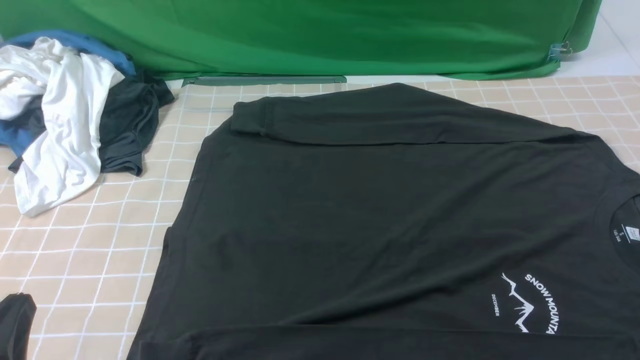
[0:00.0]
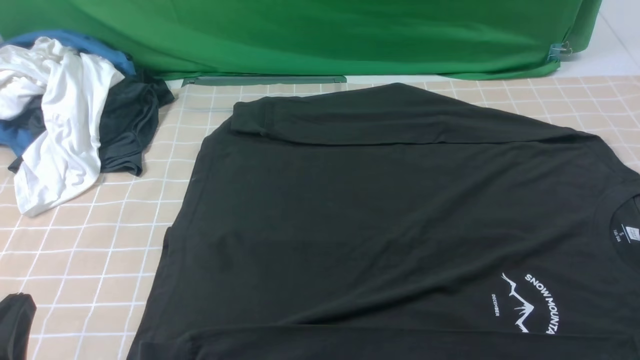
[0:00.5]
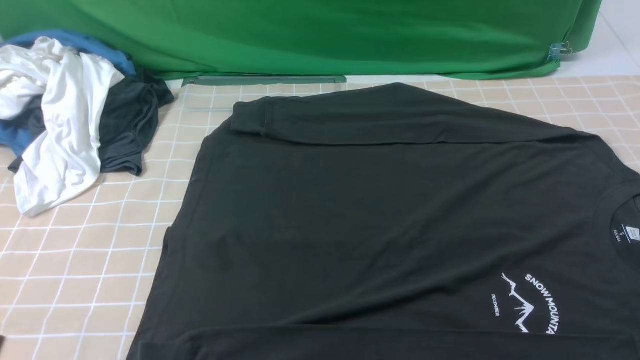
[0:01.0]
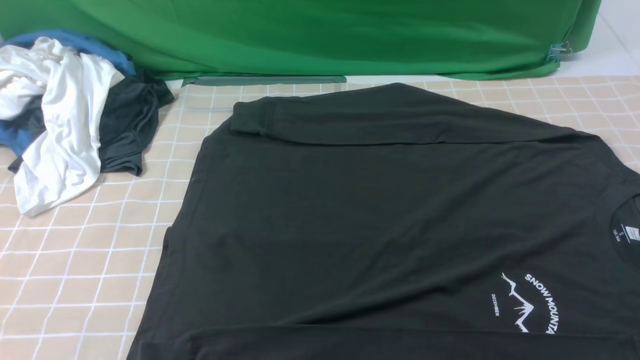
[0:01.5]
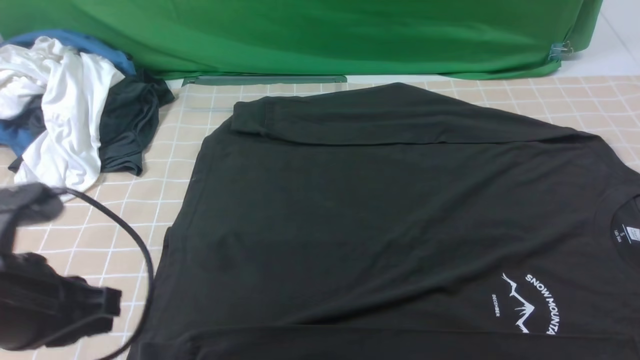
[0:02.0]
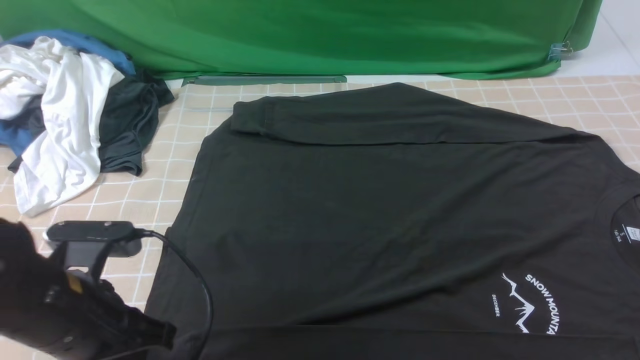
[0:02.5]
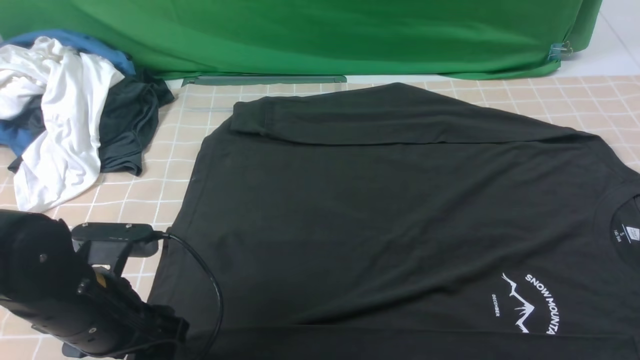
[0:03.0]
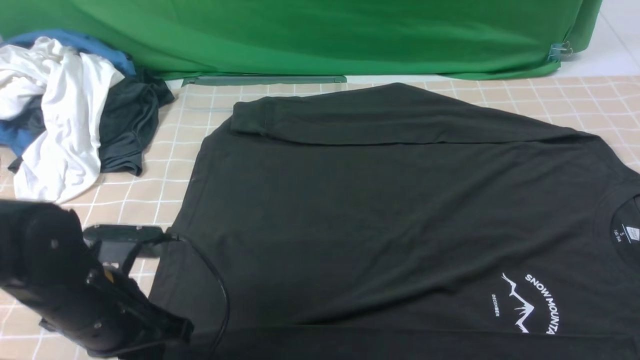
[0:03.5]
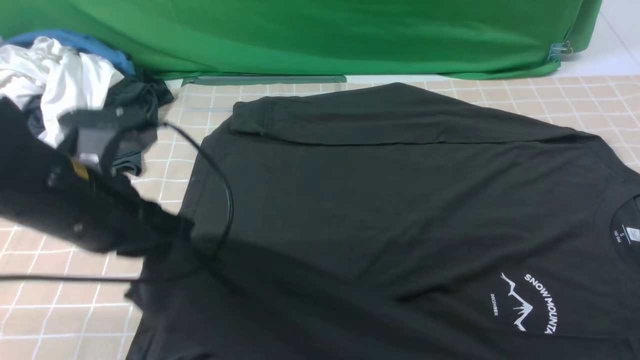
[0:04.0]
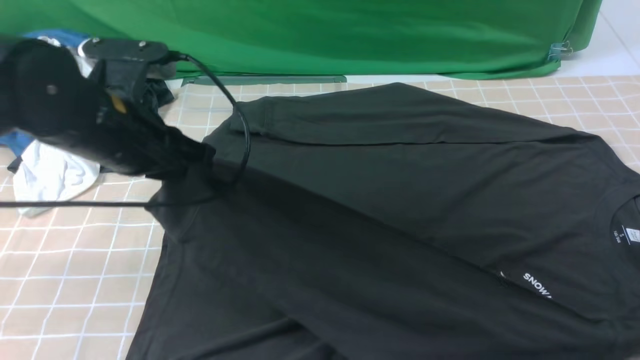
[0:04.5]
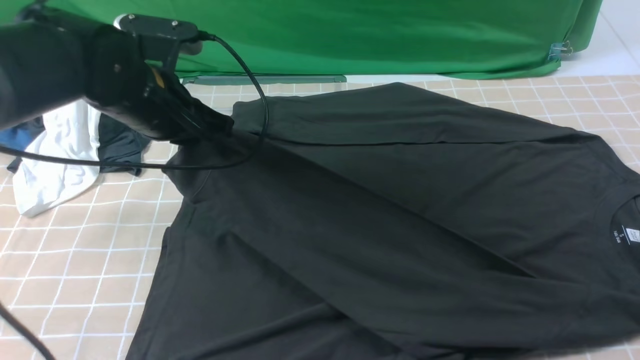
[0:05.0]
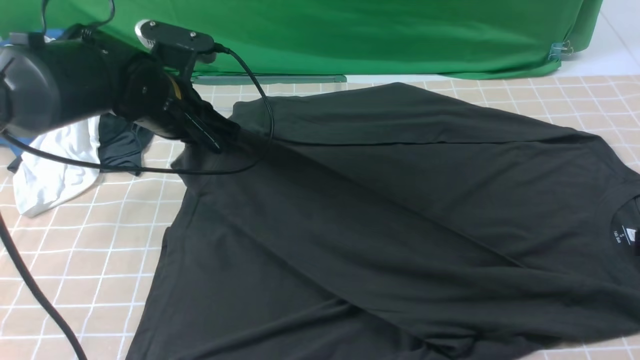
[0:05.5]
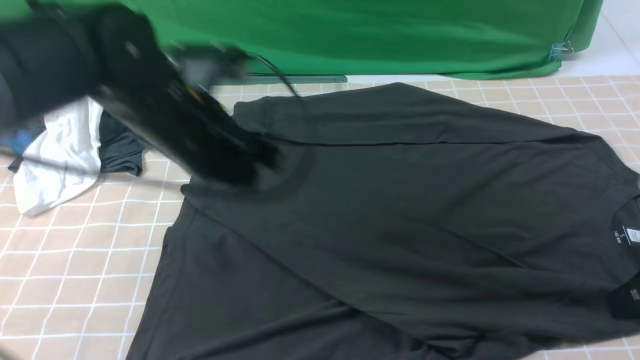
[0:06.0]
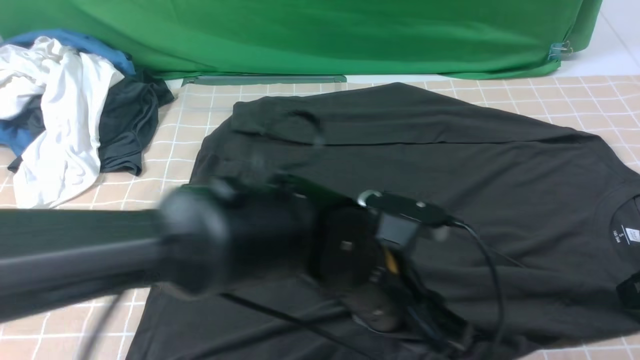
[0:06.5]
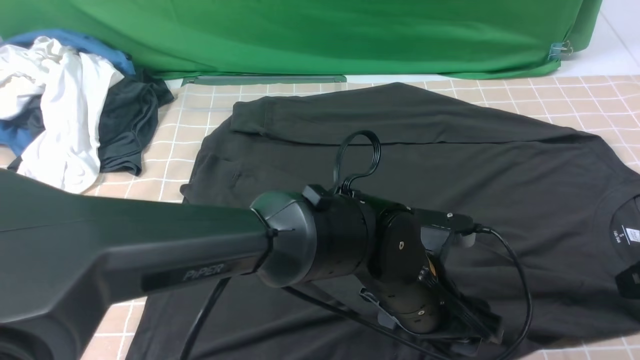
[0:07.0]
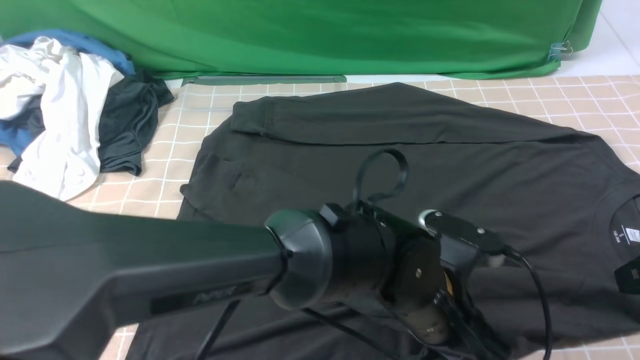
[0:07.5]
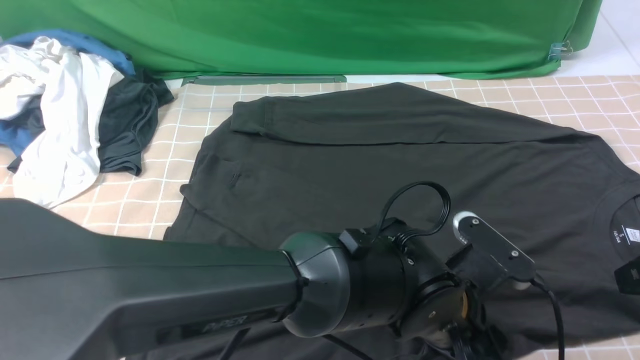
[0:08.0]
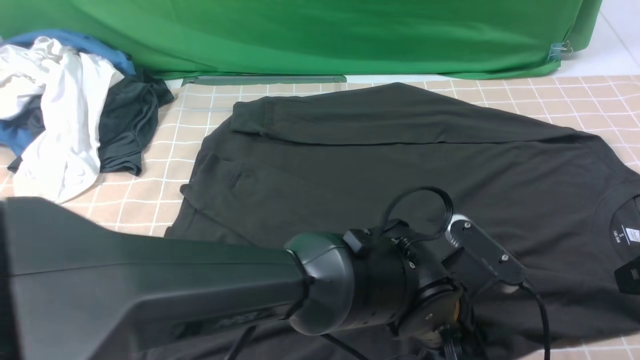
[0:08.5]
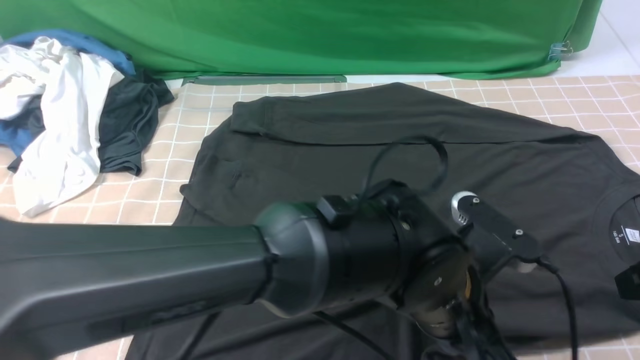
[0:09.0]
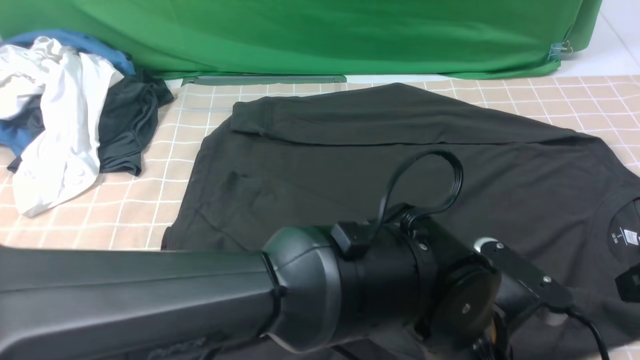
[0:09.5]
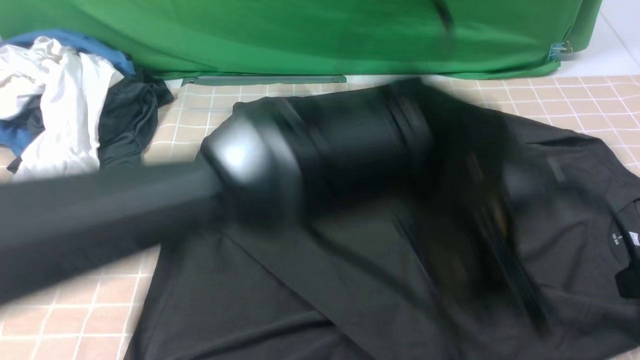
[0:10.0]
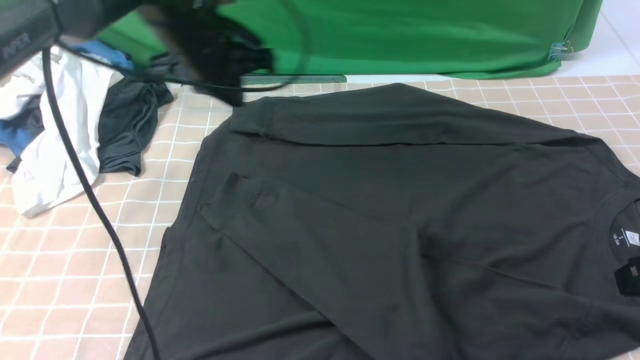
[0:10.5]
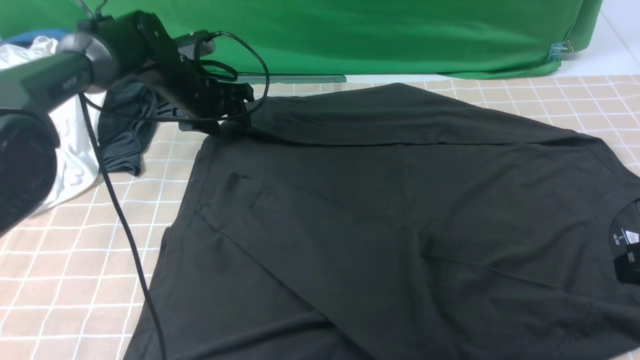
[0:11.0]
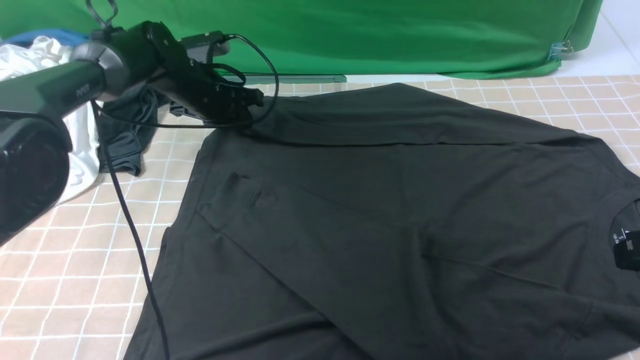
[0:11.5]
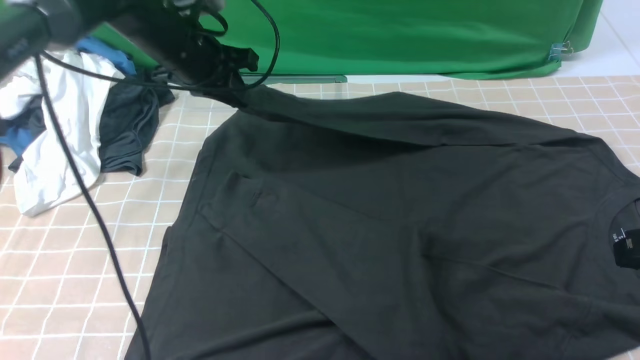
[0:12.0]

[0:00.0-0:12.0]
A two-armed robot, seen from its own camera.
Step, 0:00.0 to 0:03.0: use the left arm to clamp the cuff closest to it.
Step, 0:03.5 to 0:05.5: use the left arm to drag and place the cuff at the centered position on the left edge of the fabric.
Step, 0:06.0 to 0:11.5: use the left arm to clamp the cuff farthest from it.
0:00.0 to 0:02.0: The left gripper is displaced forward and upward by approximately 10 cm.
0:02.0 to 0:04.0: Both grippers travel together forward, some 10 cm. The left gripper travels downward and back again, some 10 cm each way, and opens, then closes again.
0:04.0 to 0:06.0: The left gripper shifts some 10 cm to the right and forward.
0:06.0 to 0:08.0: The left gripper shifts some 25 cm to the right, backward and downward, and opens up.
0:08.0 to 0:10.0: The left gripper goes some 10 cm upward, and closes.
0:10.0 to 0:12.0: The left gripper travels to the left and forward by about 35 cm, and opens and closes again.

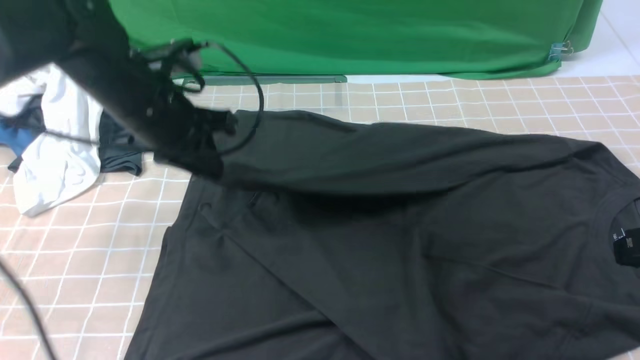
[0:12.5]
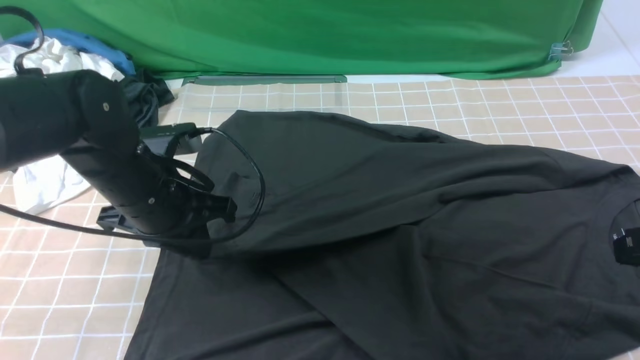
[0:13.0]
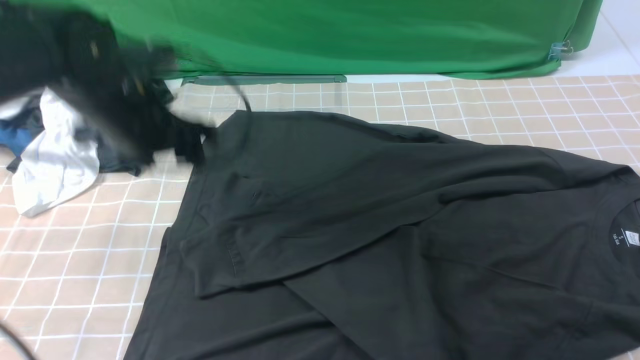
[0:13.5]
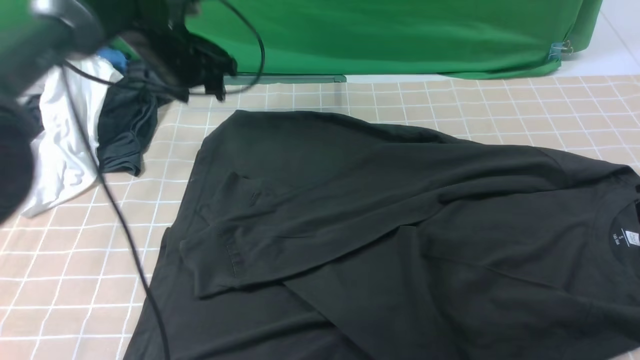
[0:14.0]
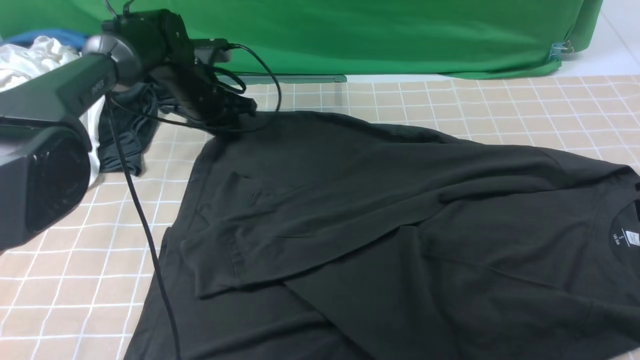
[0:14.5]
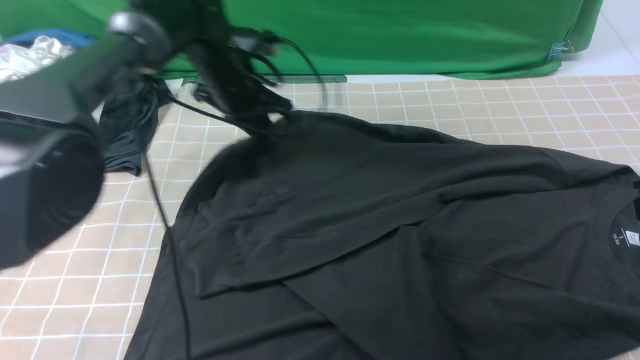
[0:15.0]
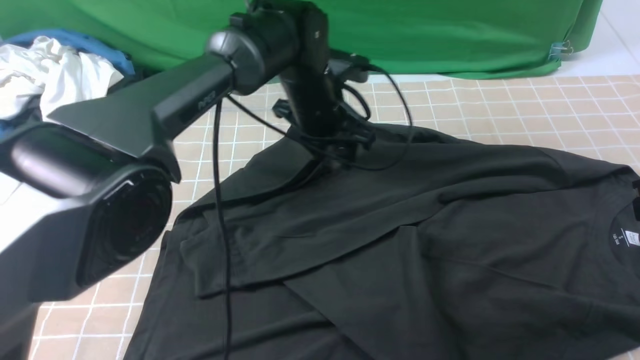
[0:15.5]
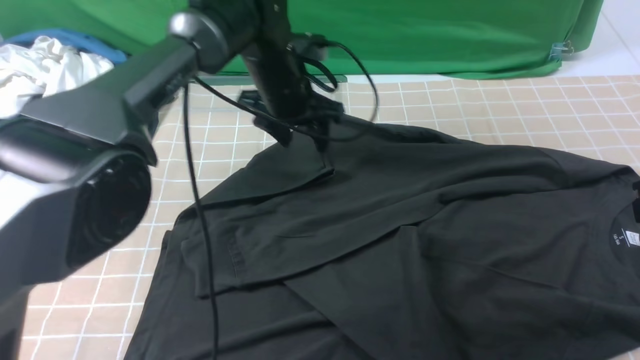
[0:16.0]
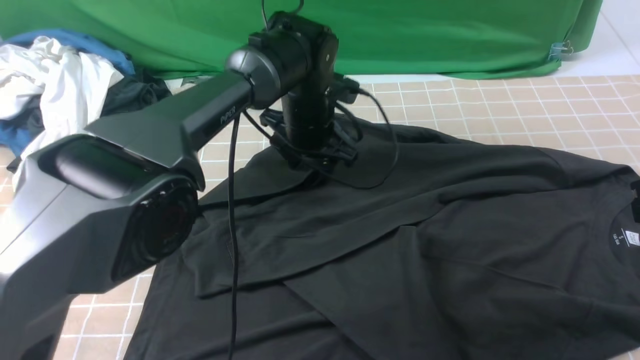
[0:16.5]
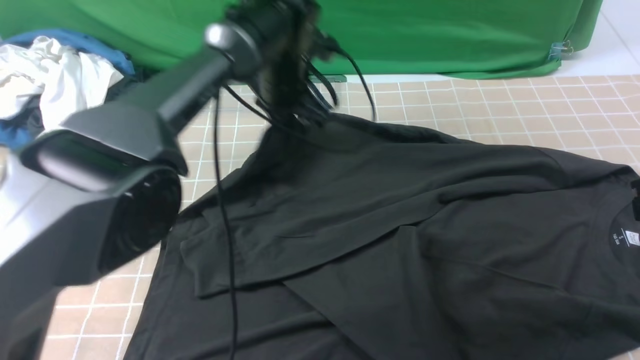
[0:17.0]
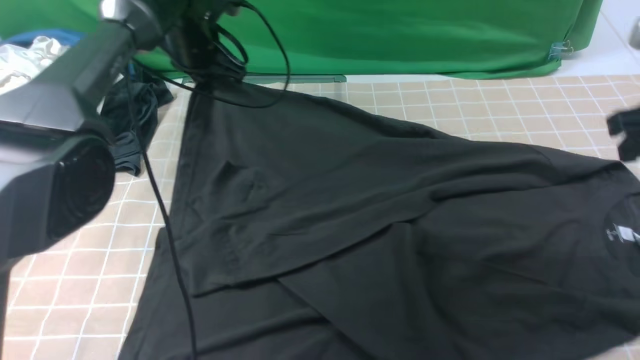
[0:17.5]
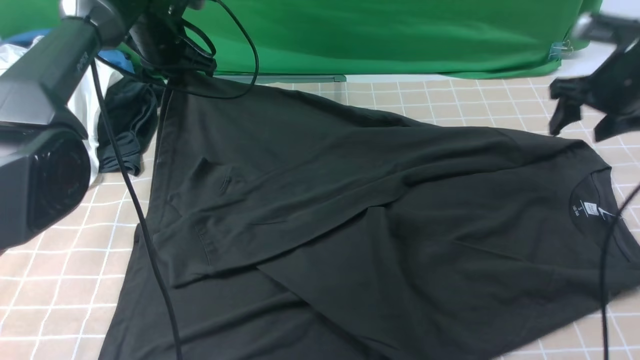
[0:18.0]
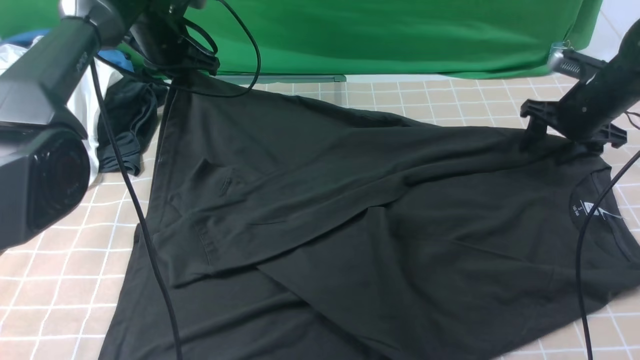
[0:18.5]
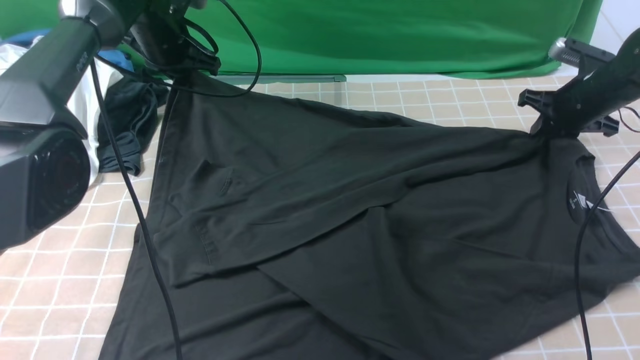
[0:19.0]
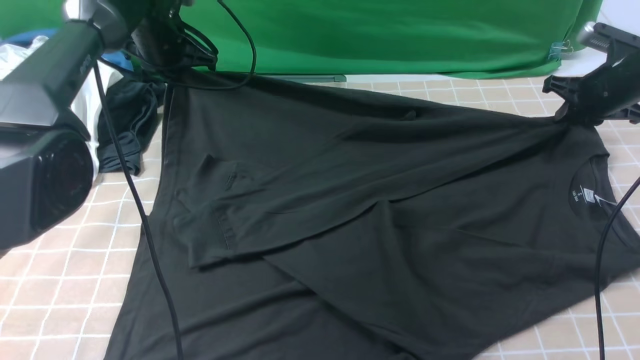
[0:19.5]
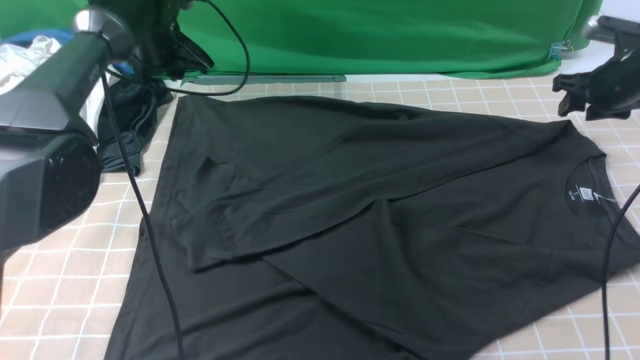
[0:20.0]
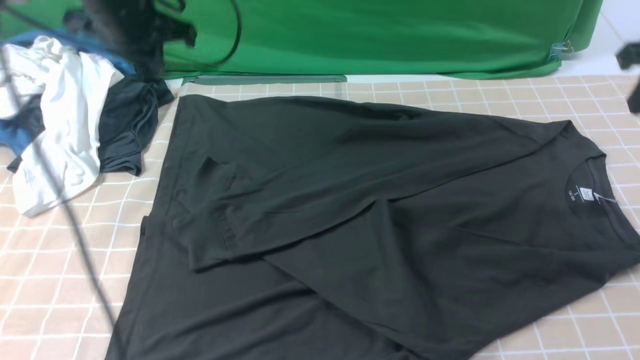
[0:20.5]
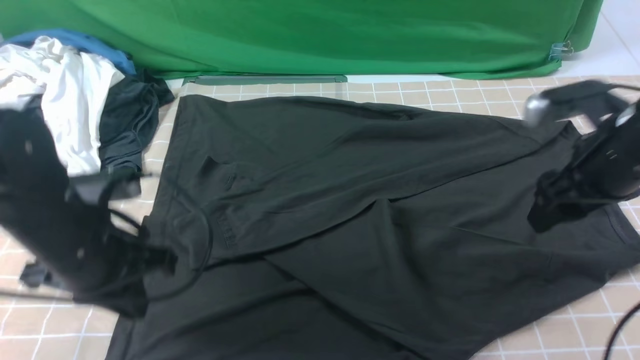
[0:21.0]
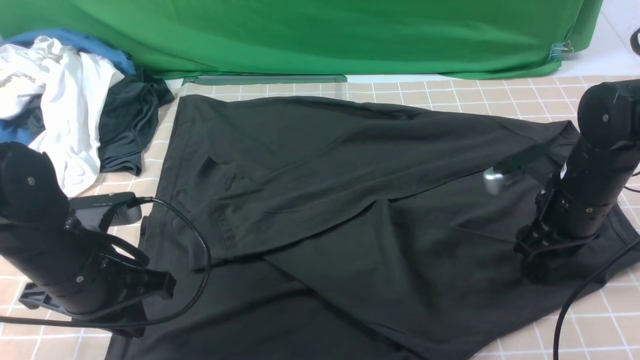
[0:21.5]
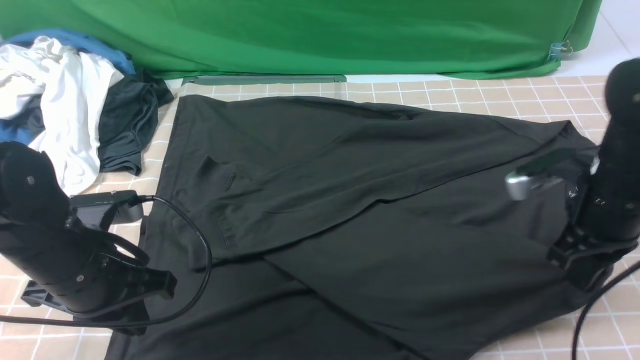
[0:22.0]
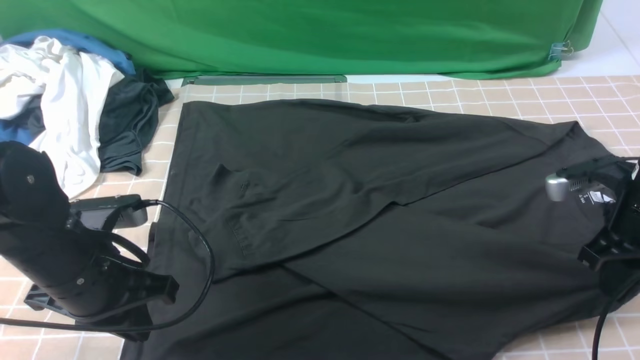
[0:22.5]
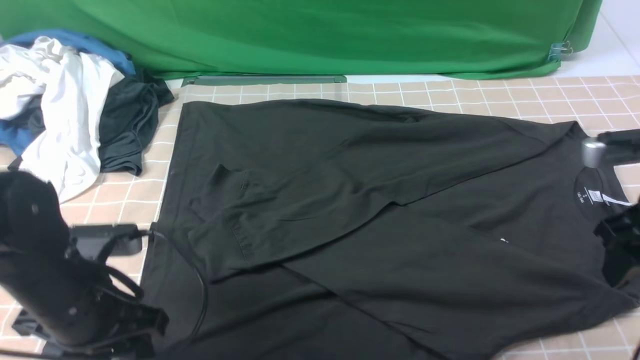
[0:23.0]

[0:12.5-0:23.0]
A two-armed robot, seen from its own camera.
0:12.5 to 0:14.5: The left gripper travels forward and downward by approximately 20 cm, and opens and closes again.
0:14.5 to 0:16.5: The left gripper travels to the right and backward by roughly 15 cm.
0:16.5 to 0:19.0: The left gripper goes about 20 cm to the left and forward, and closes; the right gripper heads forward and downward, covering some 30 cm, and opens, then closes once more.
0:19.0 to 0:21.0: The right gripper heads backward, upward and to the left, covering approximately 20 cm, and opens up, while the left gripper moves backward, some 30 cm, and opens and closes again.
0:21.0 to 0:23.0: The right gripper goes approximately 5 cm backward, goes downward and returns, roughly 5 cm each way, and closes, then reopens, while the left gripper shifts by roughly 5 cm, and opens its fingers.
